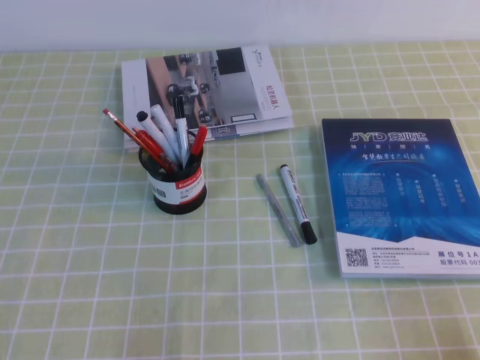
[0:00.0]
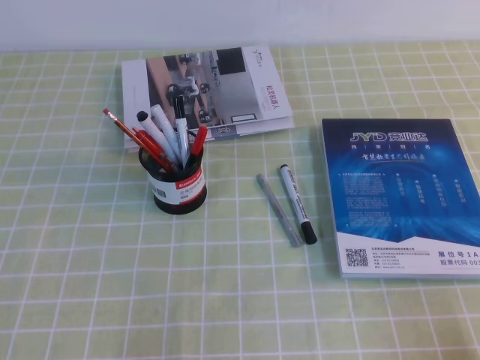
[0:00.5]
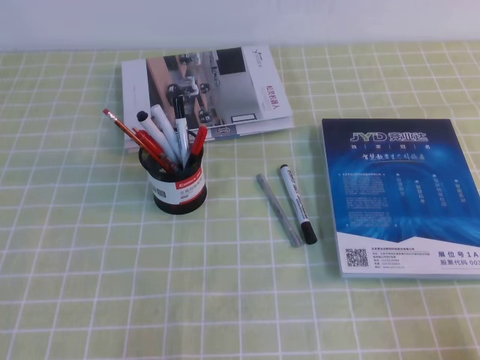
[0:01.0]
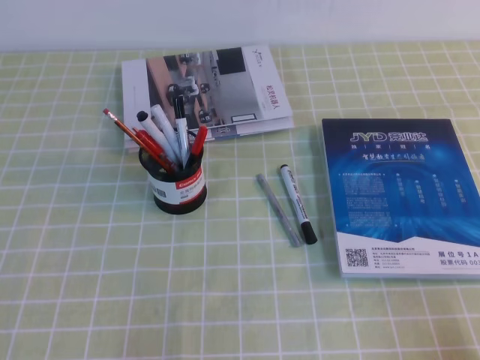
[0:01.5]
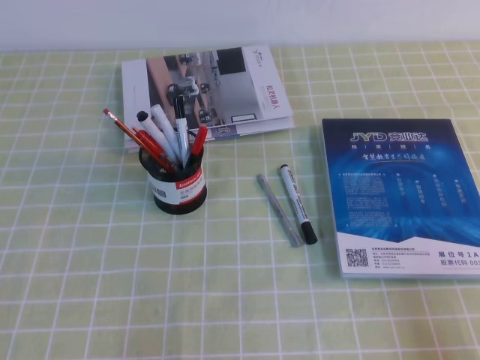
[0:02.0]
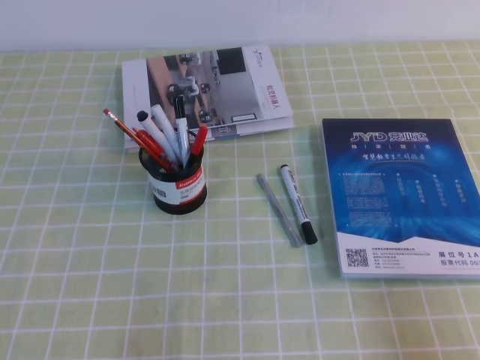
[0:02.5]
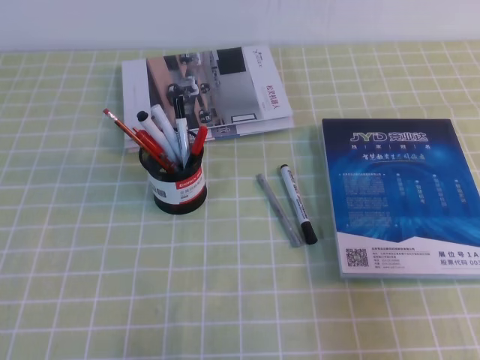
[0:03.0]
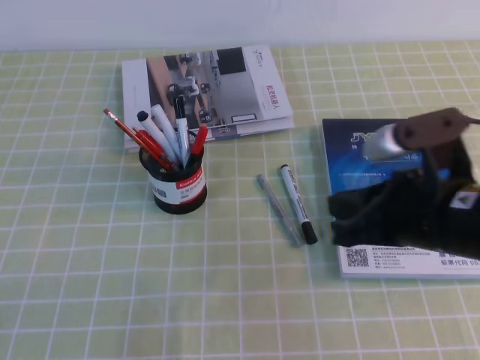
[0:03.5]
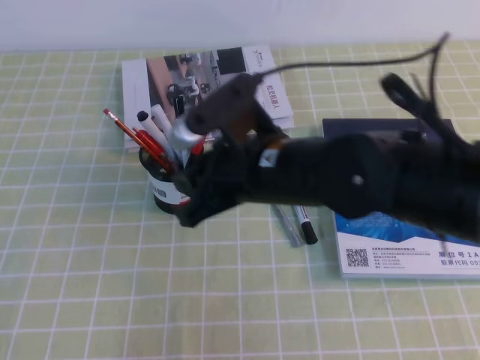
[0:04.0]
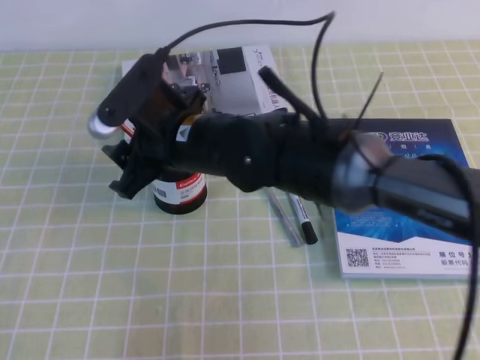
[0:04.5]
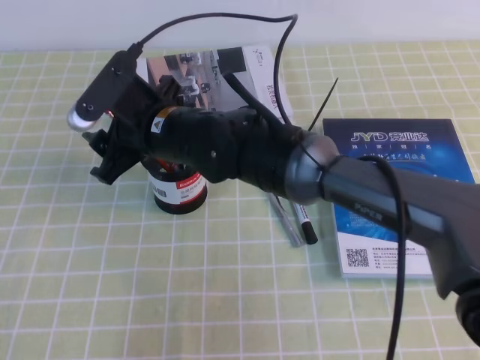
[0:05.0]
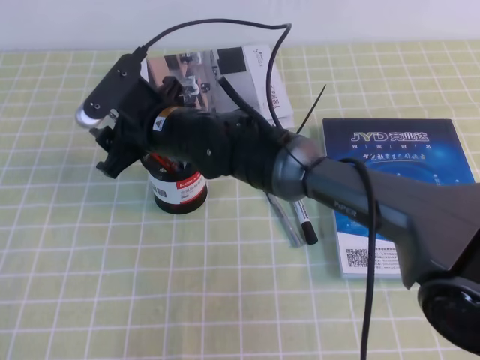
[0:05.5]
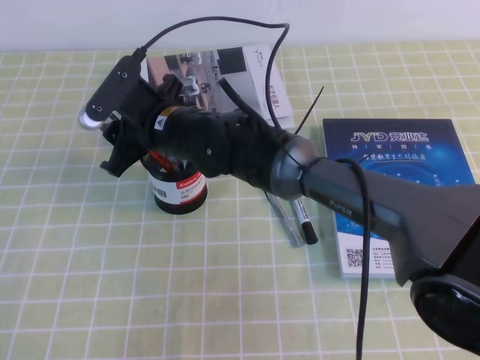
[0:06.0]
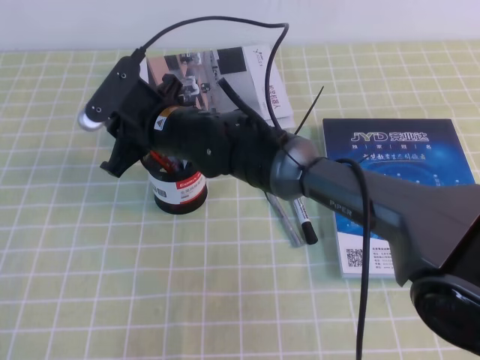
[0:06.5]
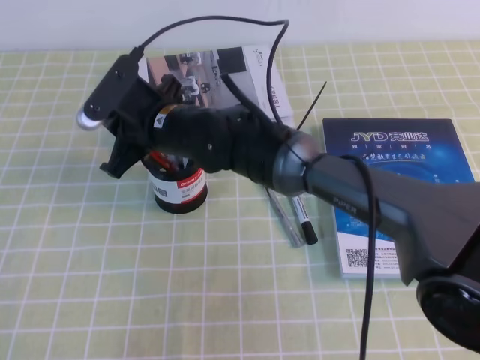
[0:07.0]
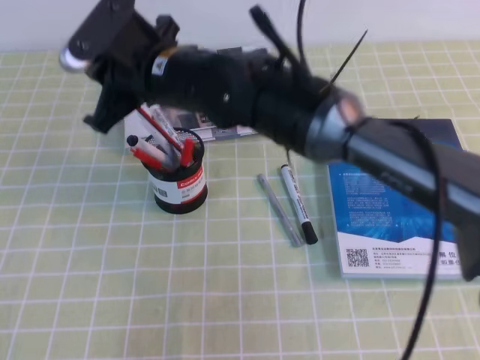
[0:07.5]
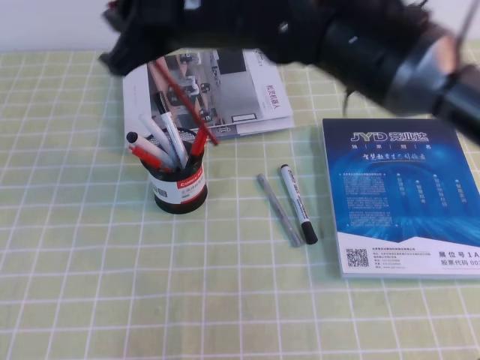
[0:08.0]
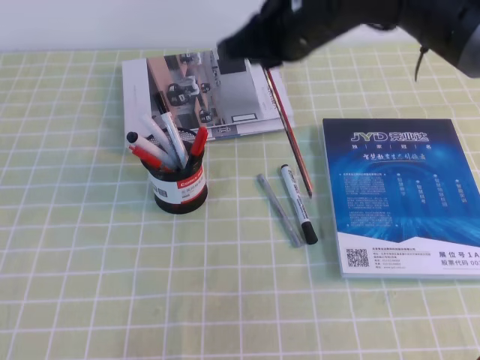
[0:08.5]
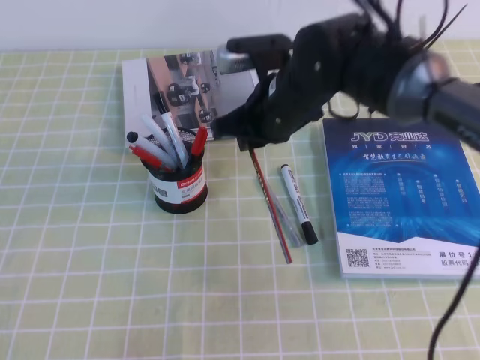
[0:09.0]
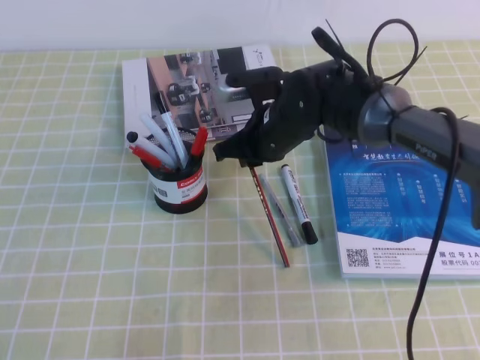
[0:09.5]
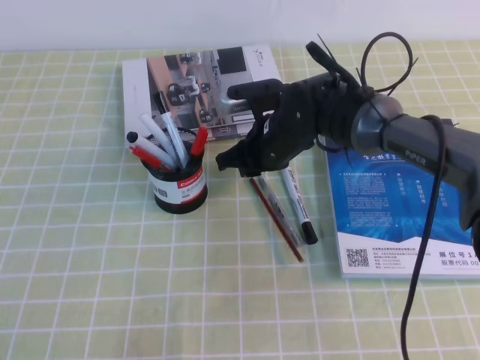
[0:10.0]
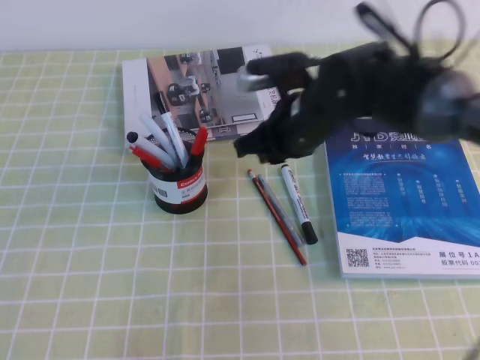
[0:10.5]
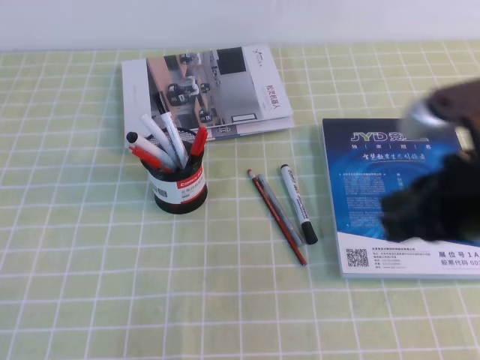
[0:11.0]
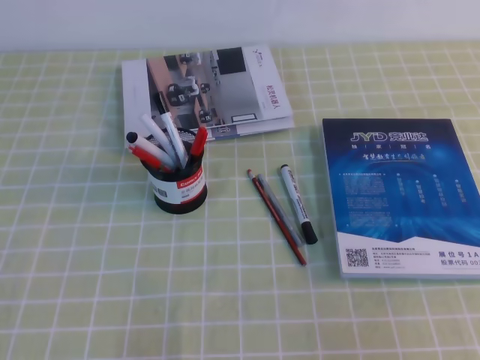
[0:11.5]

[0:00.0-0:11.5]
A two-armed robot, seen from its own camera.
0:02.0 to 0:04.0: The right gripper is displaced to the left and forward by some 35 cm, and opens its fingers.
0:04.0 to 0:06.0: The right gripper goes roughly 15 cm to the left and forward.
0:06.0 to 0:07.5: The right gripper travels upward by roughly 10 cm, and closes.
0:07.5 to 0:09.5: The right gripper moves downward, to the right and forward, approximately 15 cm.
0:09.5 to 0:11.5: The right gripper is displaced backward and to the right by some 40 cm.

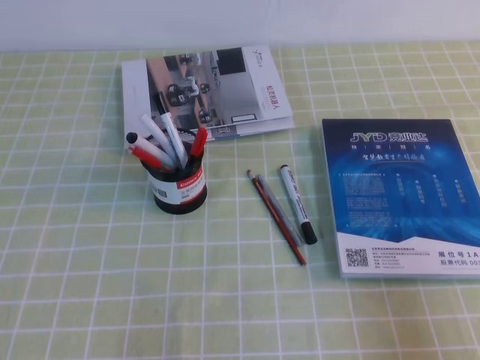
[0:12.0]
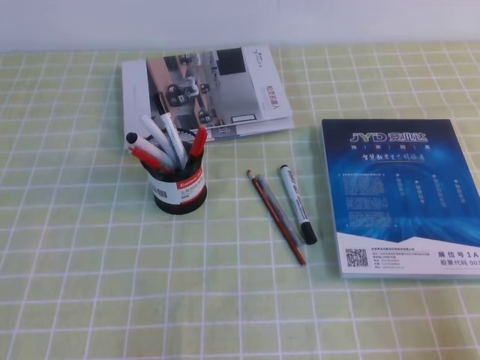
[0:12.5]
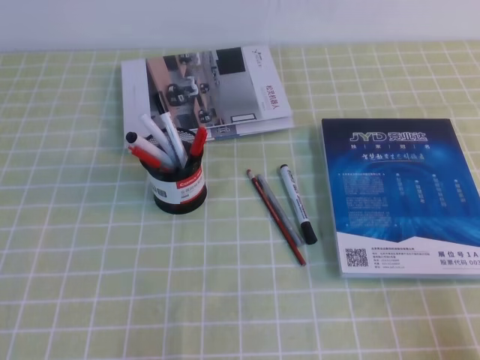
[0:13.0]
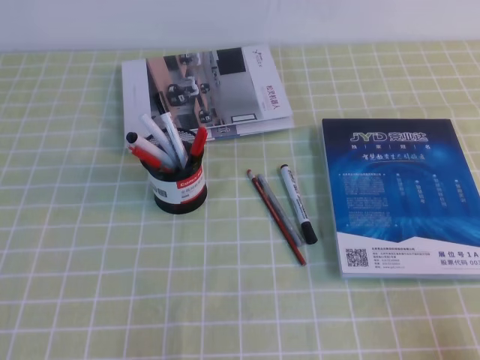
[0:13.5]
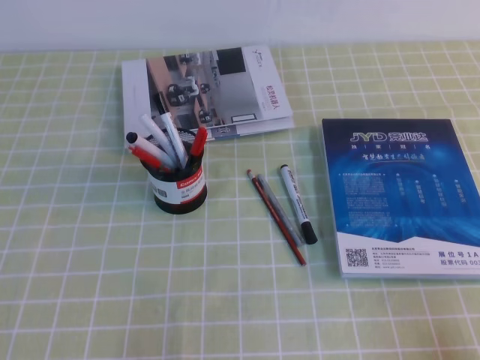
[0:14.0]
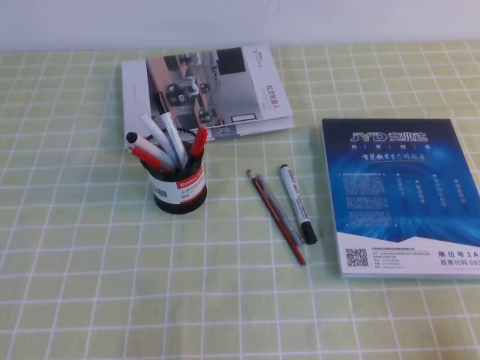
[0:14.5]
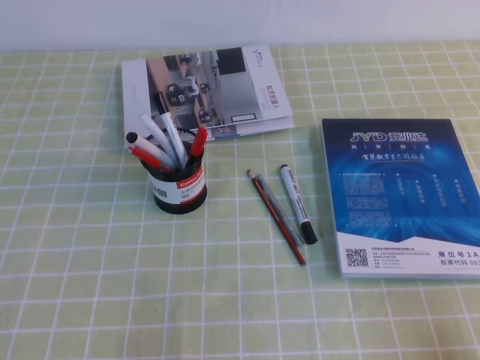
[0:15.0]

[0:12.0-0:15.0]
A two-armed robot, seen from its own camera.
0:12.0 to 0:13.5: The right gripper heads downward, covering about 5 cm.
0:13.5 to 0:15.0: Both grippers stay about where they are.
